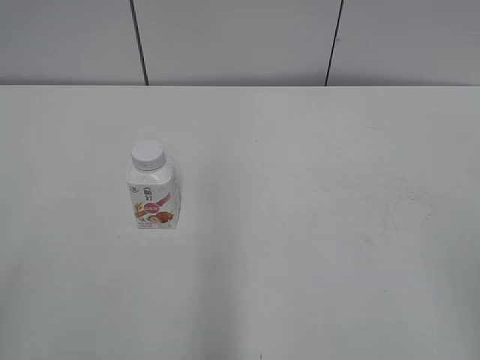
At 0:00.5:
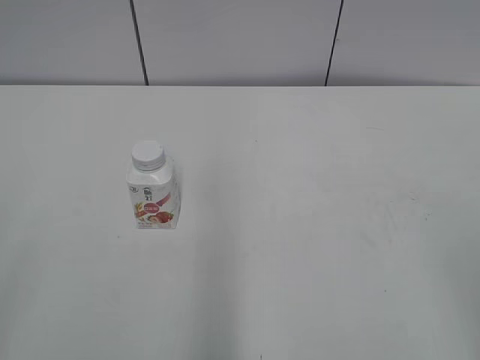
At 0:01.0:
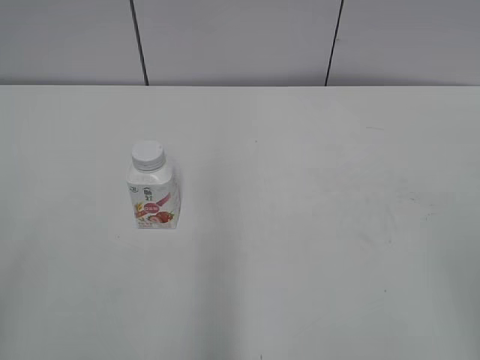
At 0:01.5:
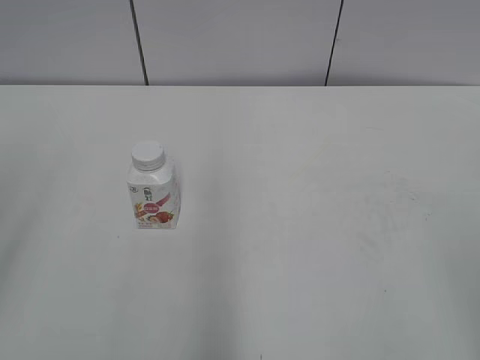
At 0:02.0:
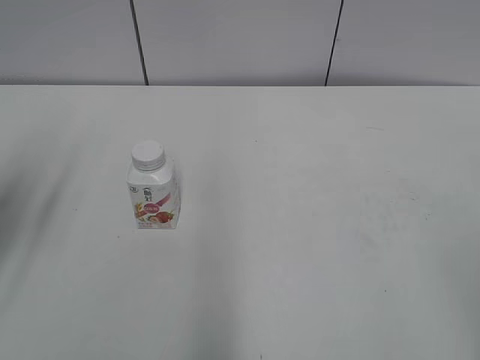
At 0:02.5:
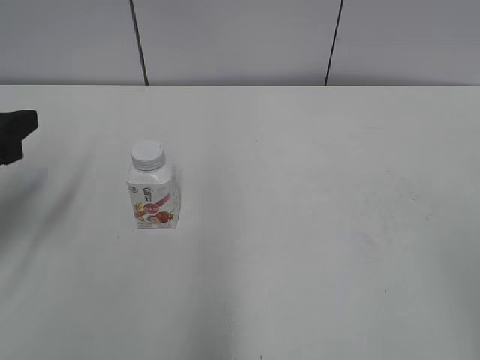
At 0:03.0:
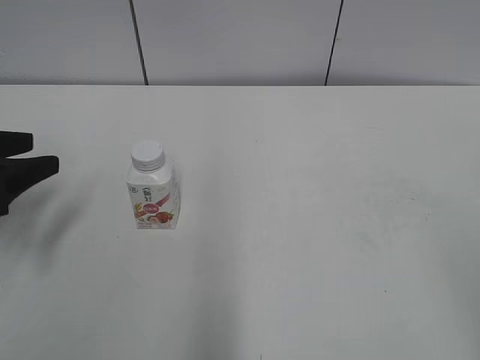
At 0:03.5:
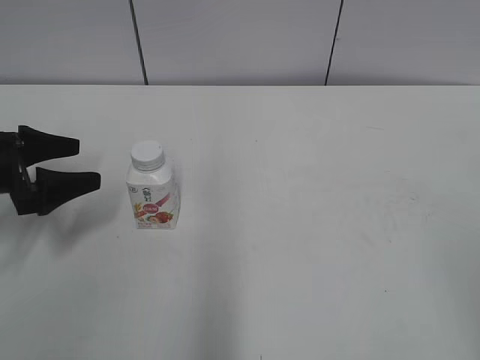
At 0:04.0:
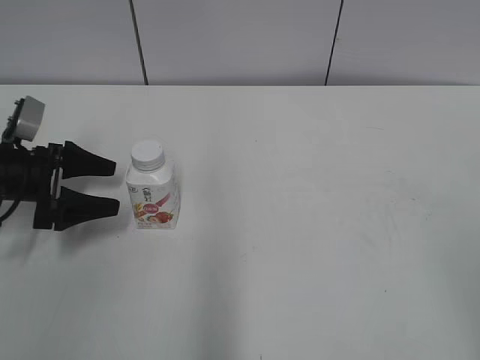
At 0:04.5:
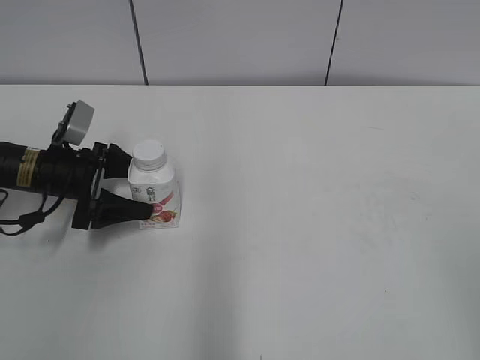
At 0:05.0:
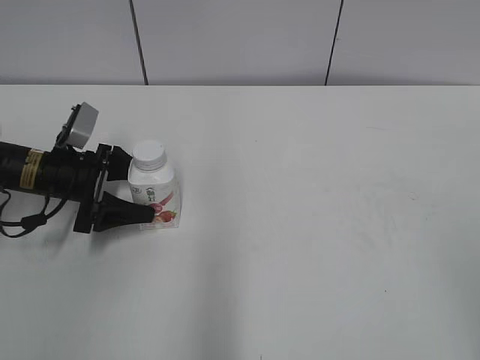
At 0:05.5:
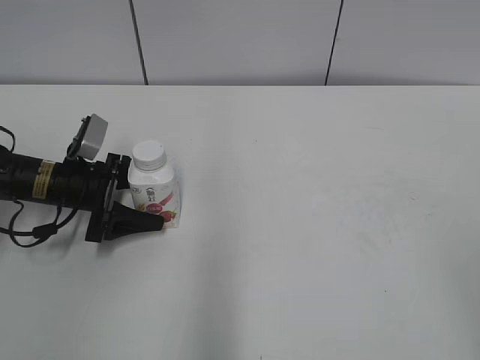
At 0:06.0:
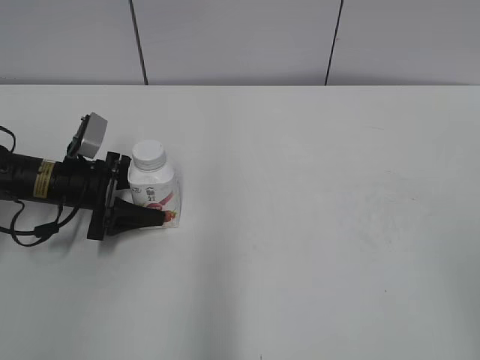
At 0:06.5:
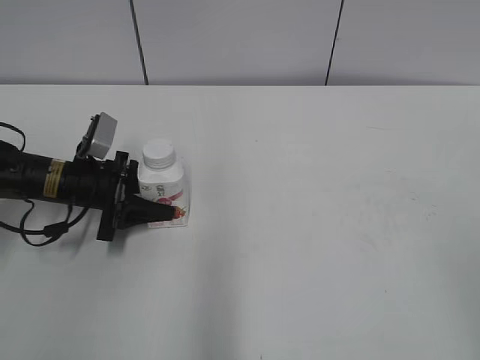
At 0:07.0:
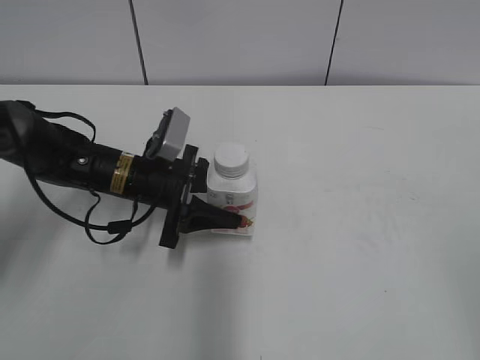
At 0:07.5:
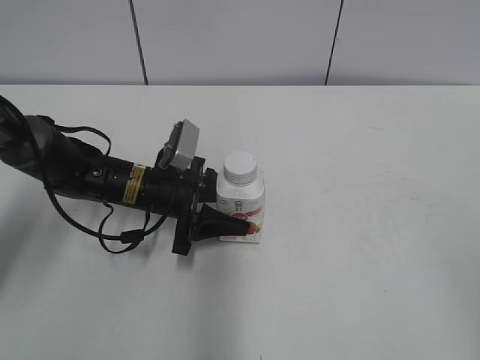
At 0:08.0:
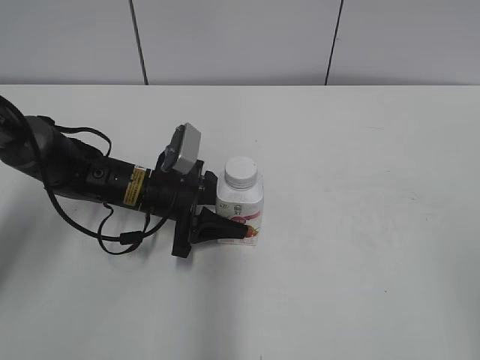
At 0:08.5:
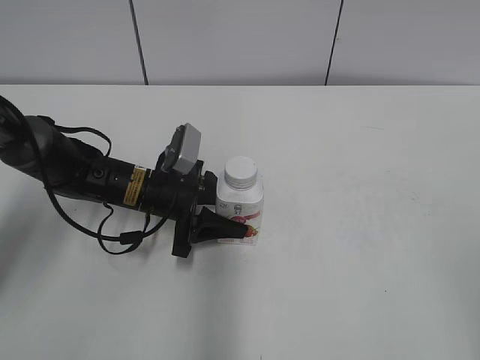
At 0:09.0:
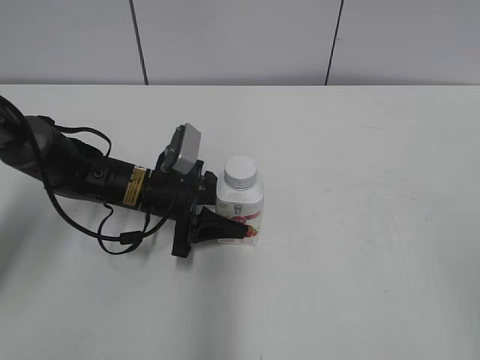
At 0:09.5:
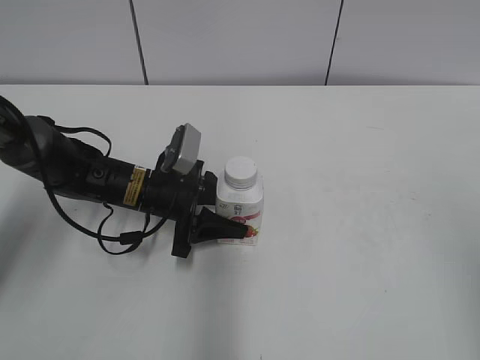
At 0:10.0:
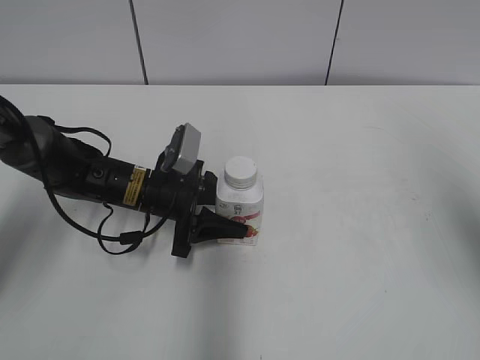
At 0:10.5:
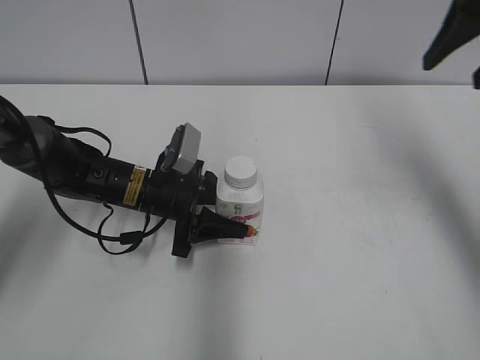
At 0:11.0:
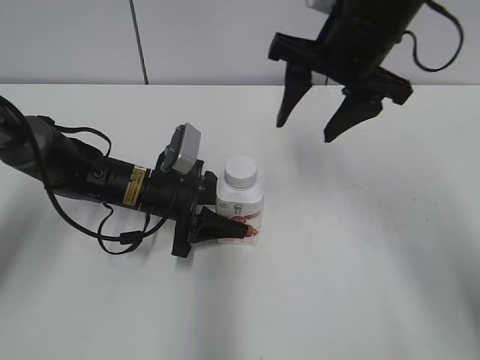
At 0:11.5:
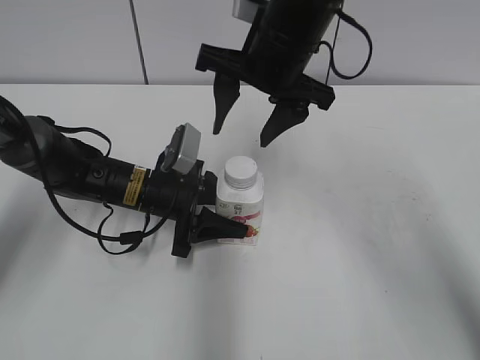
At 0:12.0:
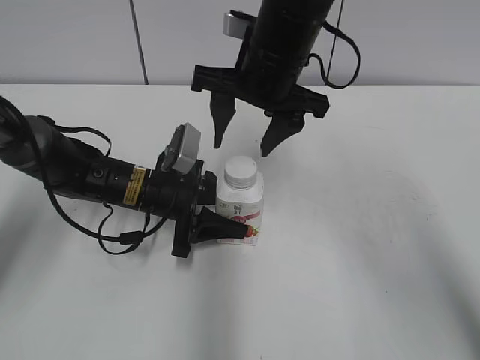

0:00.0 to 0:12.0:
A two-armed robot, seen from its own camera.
Step, 0:00.0 to 0:06.0: Grab the Yili Changqing with the left hand.
Step, 0:06.5 to 0:08.0: Move the Yili Changqing from left to right.
0:02.0 to 0:04.0: The left gripper heads downward and forward, covering approximately 25 cm, and opens.
0:04.0 to 0:06.0: The left gripper moves to the right, roughly 5 cm.
0:06.0 to 0:08.0: The left gripper moves to the right, about 10 cm, and closes up.
0:08.0 to 0:10.0: The right gripper goes roughly 15 cm forward.
0:10.0 to 0:12.0: The right gripper travels to the left and forward by some 30 cm.

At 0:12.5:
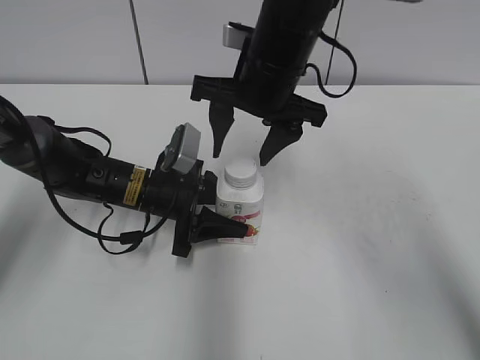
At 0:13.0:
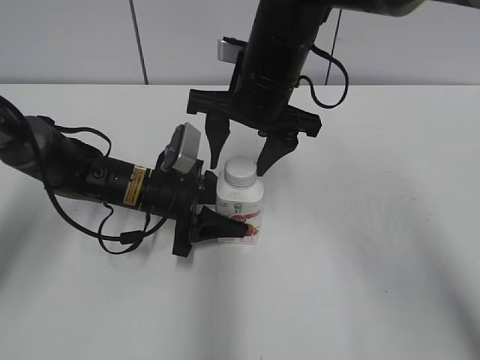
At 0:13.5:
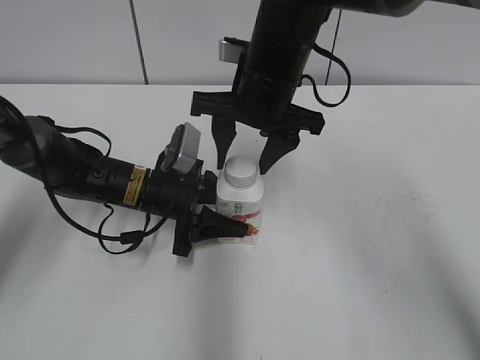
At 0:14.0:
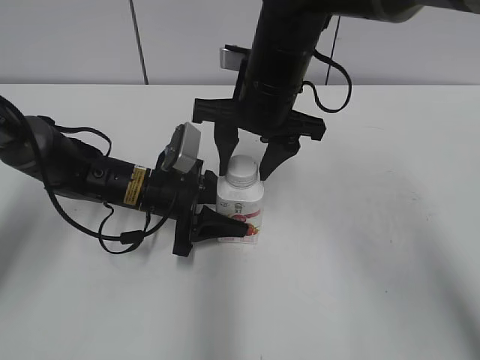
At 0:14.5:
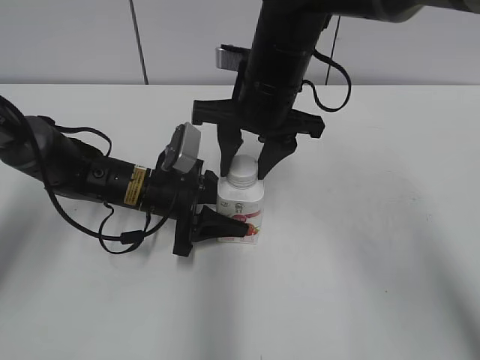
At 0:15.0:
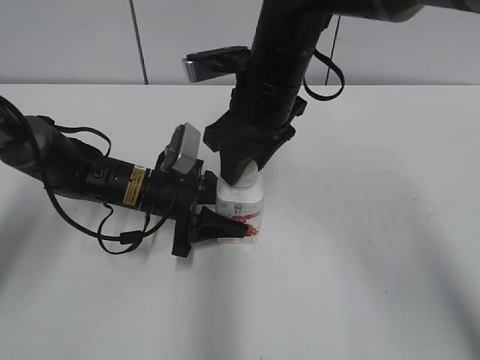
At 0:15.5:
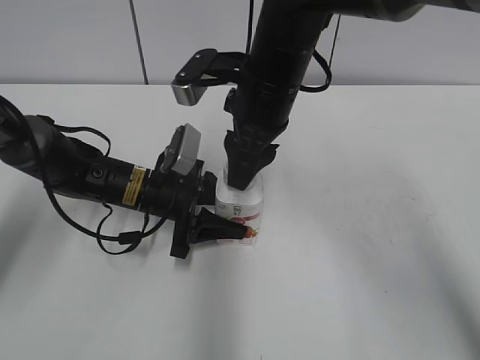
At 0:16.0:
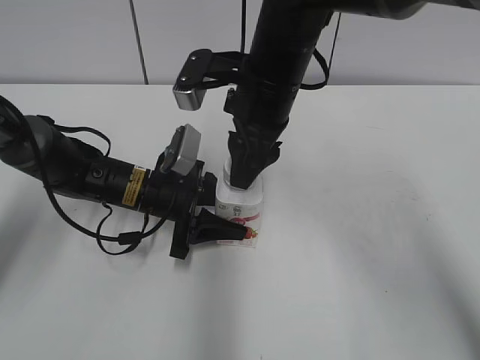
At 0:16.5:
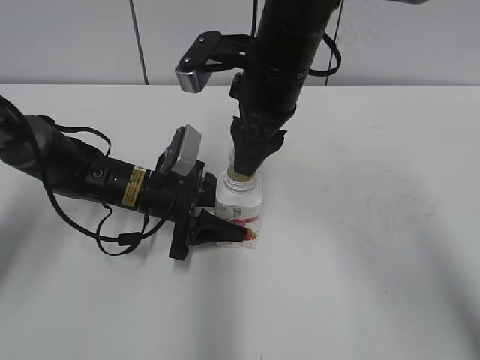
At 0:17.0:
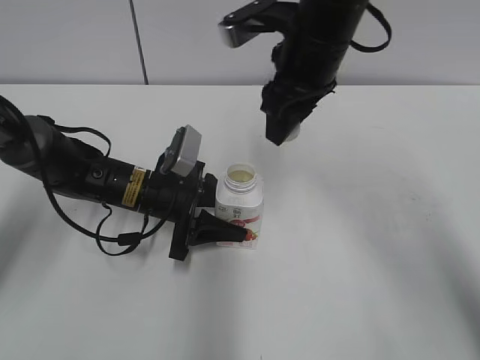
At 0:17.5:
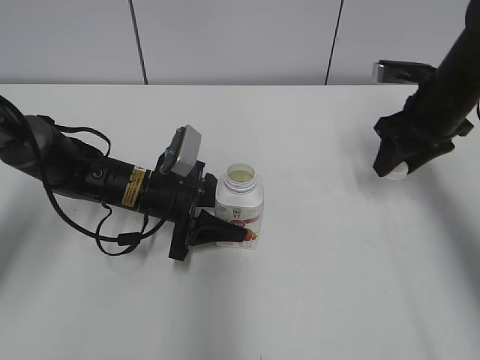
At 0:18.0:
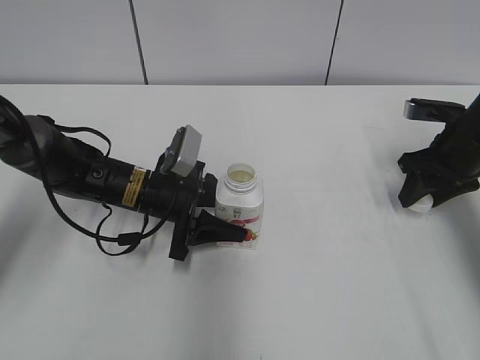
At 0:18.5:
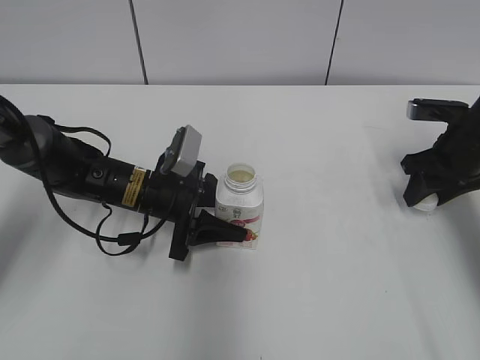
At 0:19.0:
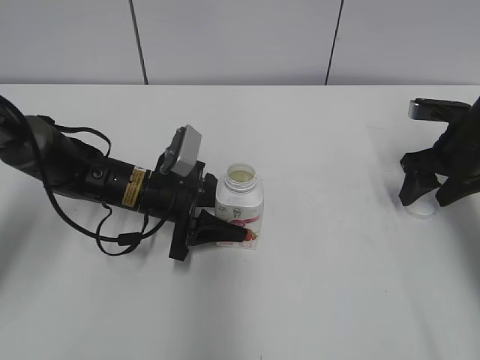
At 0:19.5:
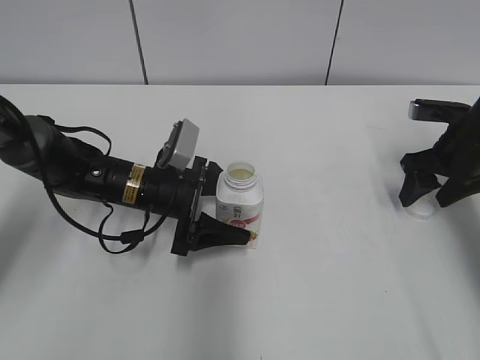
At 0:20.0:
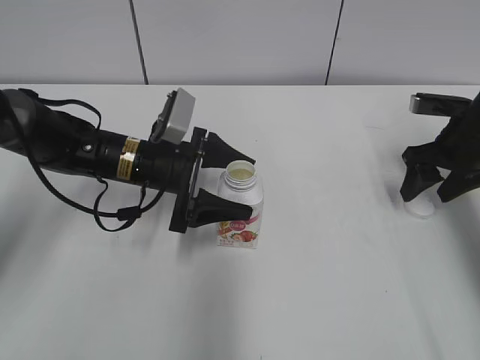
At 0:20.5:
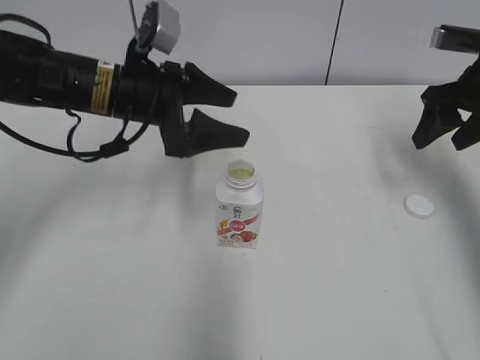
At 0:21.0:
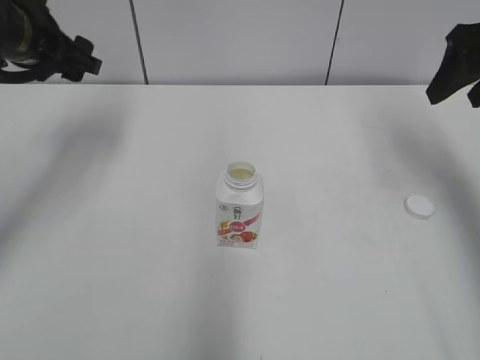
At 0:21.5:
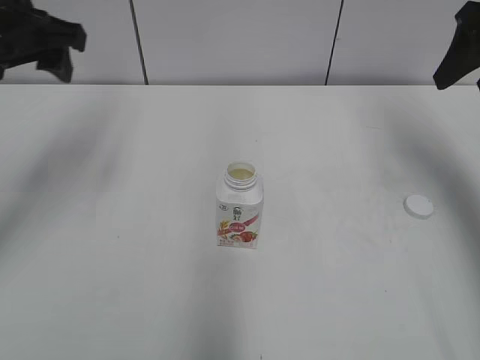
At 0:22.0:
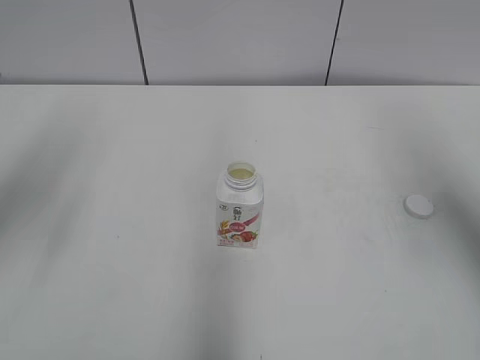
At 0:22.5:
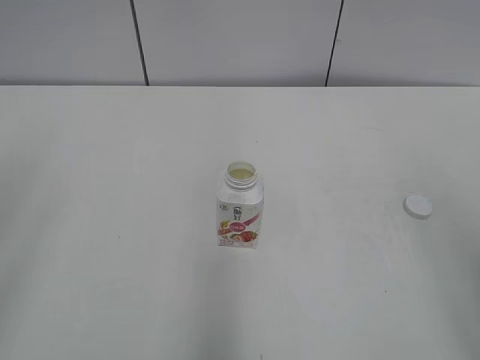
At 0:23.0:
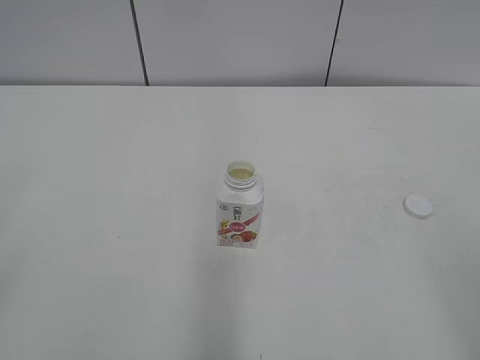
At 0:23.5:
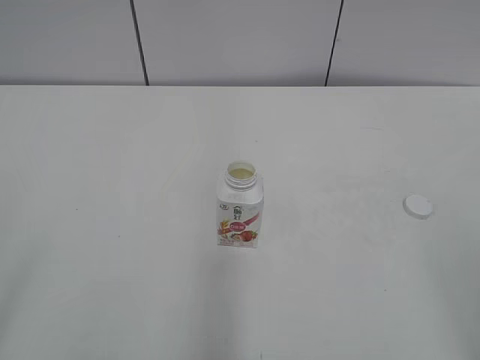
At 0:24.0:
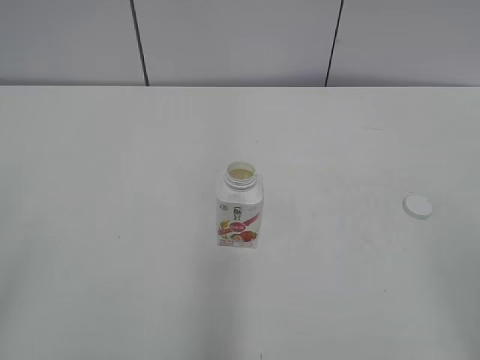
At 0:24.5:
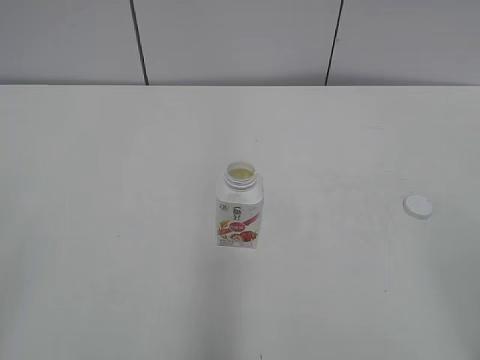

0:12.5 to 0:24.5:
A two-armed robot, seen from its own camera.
Step, 0:16.5 to 0:18.5: Place the bottle cap on the right.
0:12.5 to 0:14.5: The right gripper closes up.
0:16.5 to 0:18.5: The right gripper goes roughly 30 cm to the right and downward.
0:18.5 to 0:20.5: The right gripper moves upward, some 10 cm, and opens up; the left gripper moves upward, about 15 cm, and opens up.
0:20.5 to 0:22.5: The right gripper travels backward by about 30 cm, while the left gripper heads backward, to the left and upward, covering some 35 cm, and closes up.
